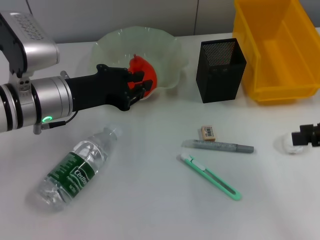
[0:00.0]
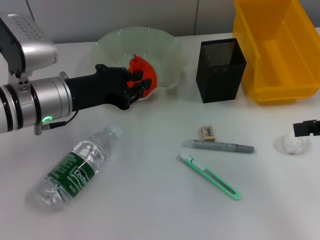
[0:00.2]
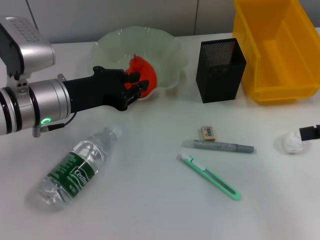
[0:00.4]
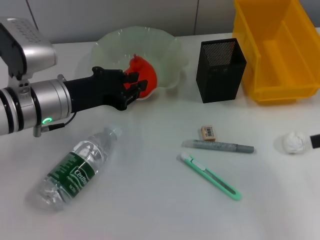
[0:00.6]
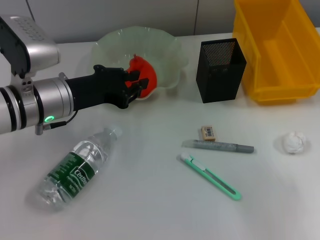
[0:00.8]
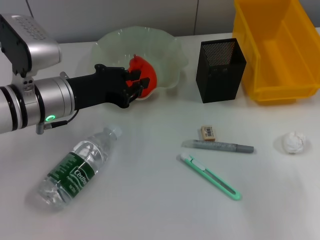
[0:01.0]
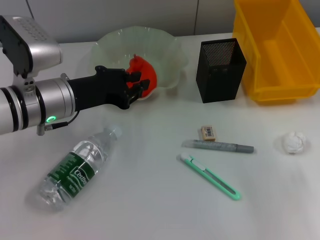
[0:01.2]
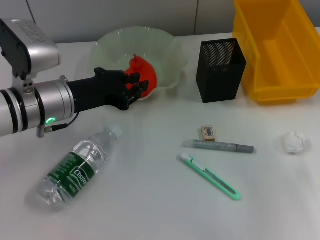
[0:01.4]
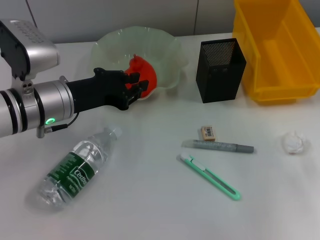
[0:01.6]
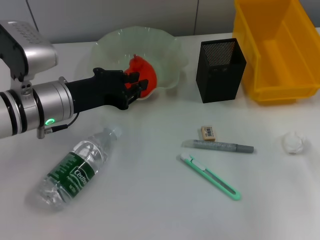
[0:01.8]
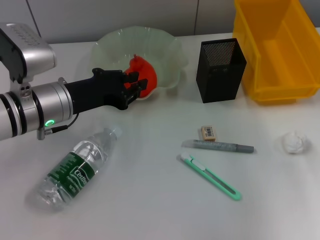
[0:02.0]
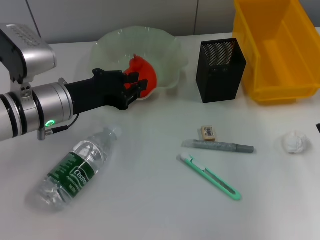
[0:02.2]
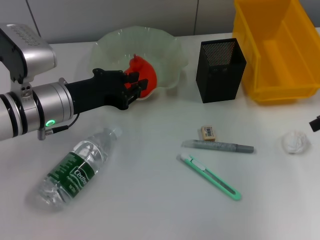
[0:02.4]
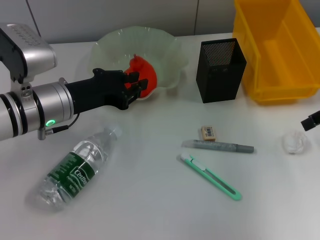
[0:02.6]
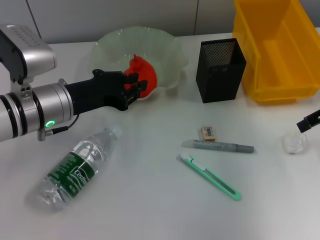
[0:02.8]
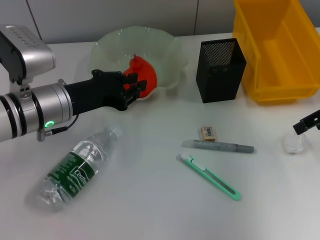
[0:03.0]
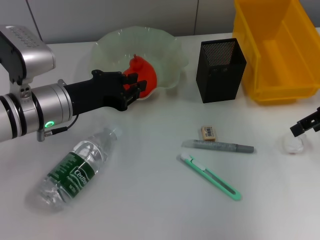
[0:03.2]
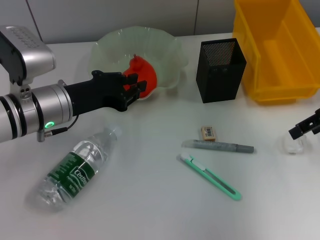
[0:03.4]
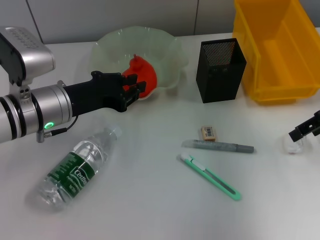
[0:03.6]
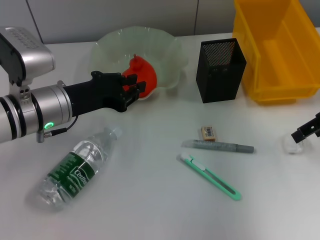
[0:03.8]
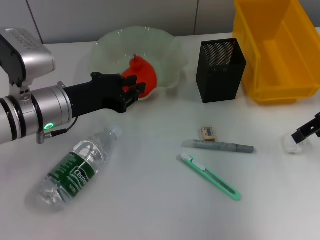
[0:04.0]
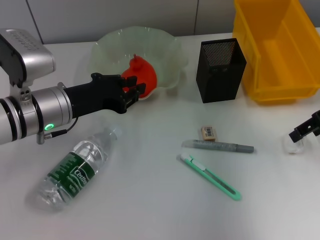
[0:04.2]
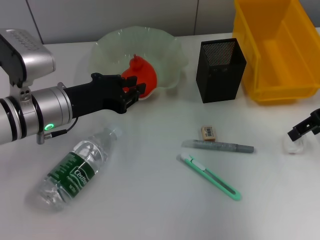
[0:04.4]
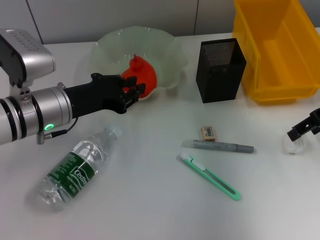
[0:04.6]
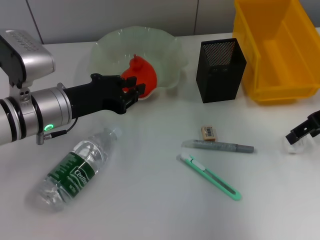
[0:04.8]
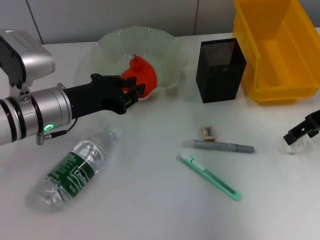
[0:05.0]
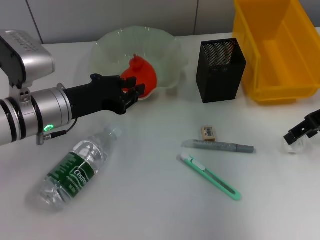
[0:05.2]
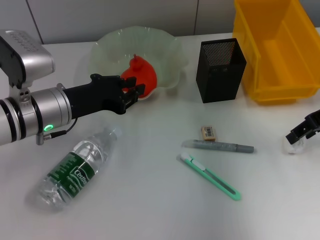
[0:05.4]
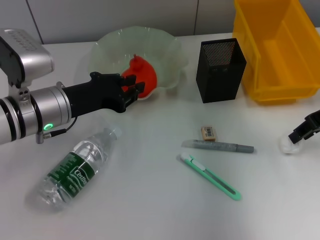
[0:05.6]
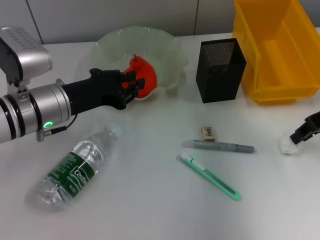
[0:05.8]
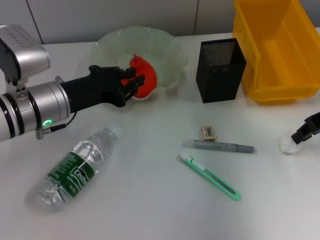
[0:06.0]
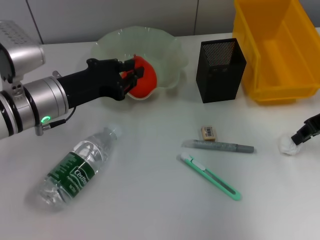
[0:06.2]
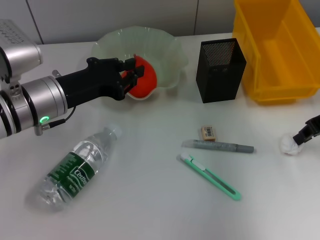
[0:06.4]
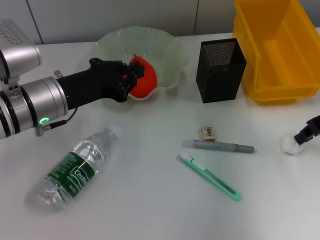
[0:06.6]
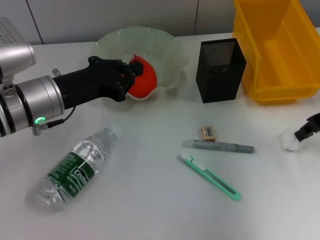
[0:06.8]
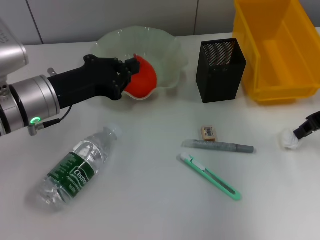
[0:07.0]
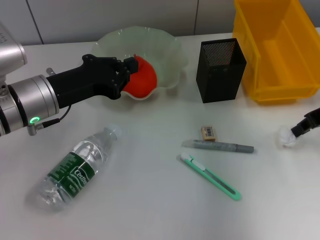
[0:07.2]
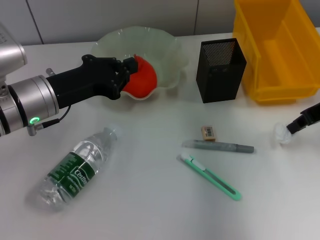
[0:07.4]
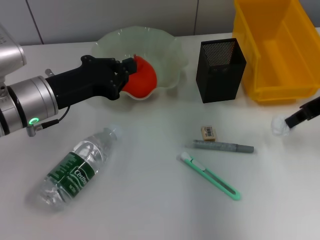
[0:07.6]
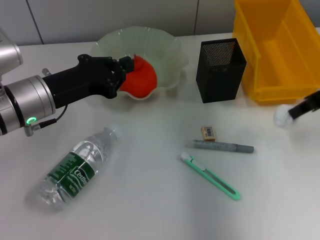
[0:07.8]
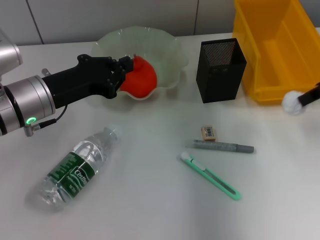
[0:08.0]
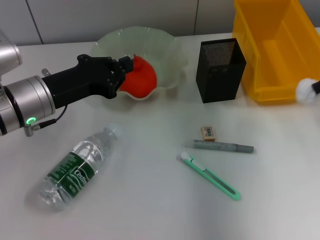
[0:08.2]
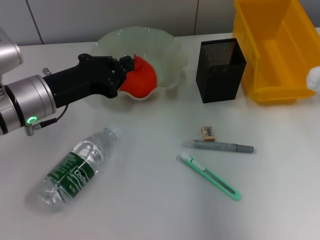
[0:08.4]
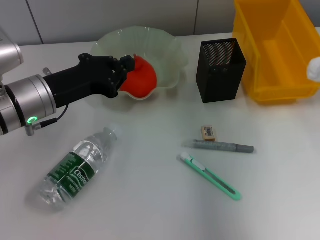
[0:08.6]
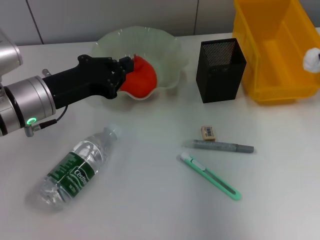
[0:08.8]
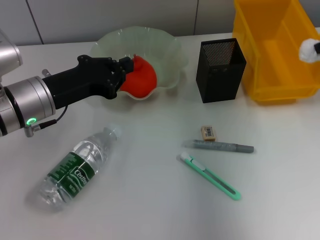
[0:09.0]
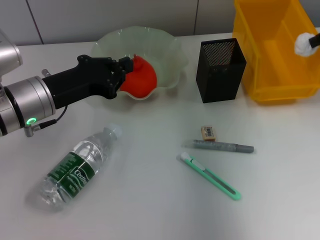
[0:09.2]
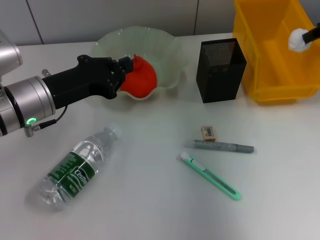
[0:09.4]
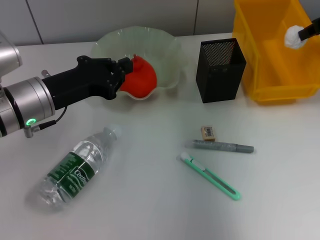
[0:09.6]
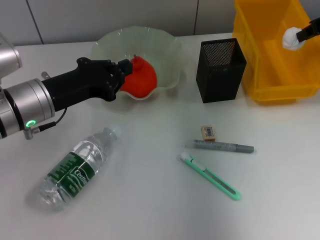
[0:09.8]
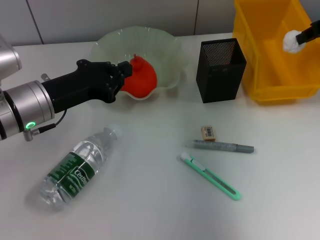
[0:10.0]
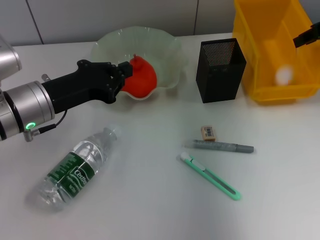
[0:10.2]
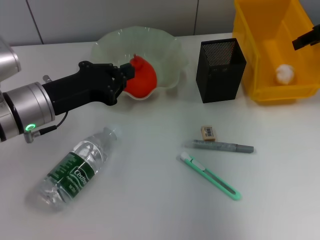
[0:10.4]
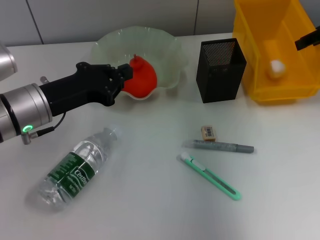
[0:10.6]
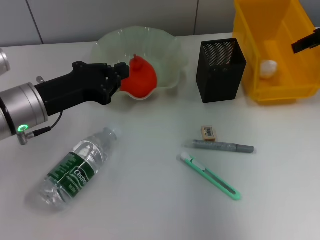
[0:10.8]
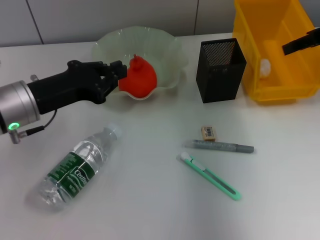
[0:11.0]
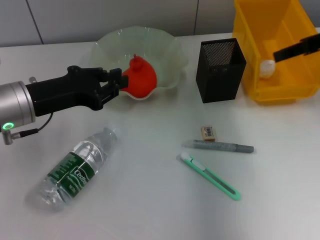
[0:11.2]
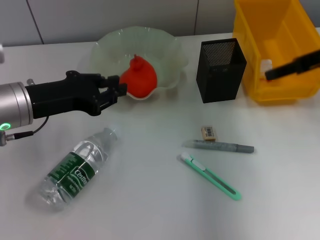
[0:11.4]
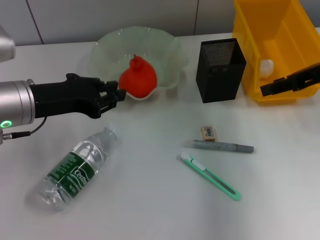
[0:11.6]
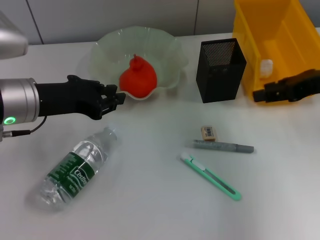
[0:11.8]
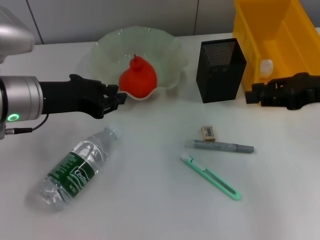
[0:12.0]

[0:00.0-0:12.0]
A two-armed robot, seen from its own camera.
Step, 0:00.0 to 0:06.6: Grab the paper ball with the right hand.
Step, 0:06.8 to 0:10.4: Place the paper ball into the trash can with the right hand.
0:00.0 to 0:01.6: The right gripper heads forward, covering roughly 5 cm.
0:01.6 to 0:03.0: The right gripper is displaced forward by approximately 5 cm.
0:03.0 to 0:04.4: The grippers move only a little.
0:04.4 to 0:06.0: The right gripper closes its fingers.
0:06.0 to 0:07.6: There are only small adjustments of the grippers.
0:07.6 to 0:09.0: The right gripper moves upward, some 5 cm.
0:09.0 to 0:10.4: The grippers move only a little.
0:10.4 to 0:12.0: The right gripper shifts some 15 cm backward and downward.

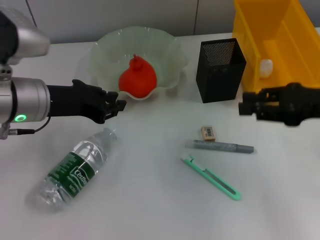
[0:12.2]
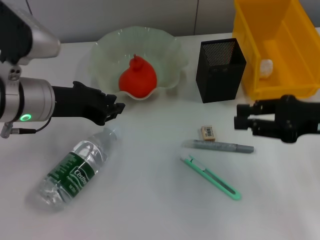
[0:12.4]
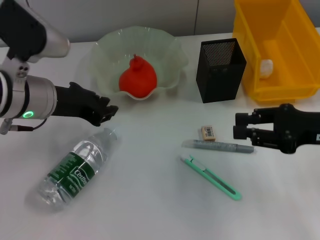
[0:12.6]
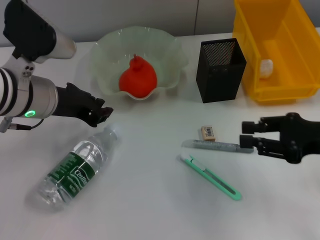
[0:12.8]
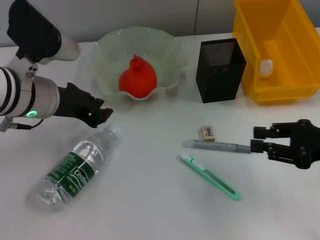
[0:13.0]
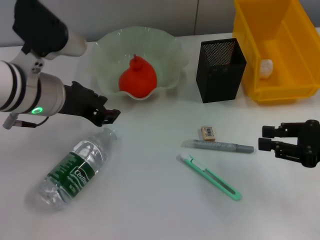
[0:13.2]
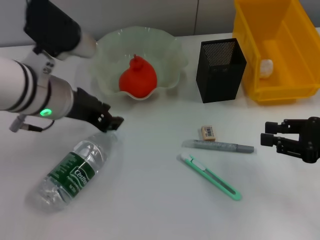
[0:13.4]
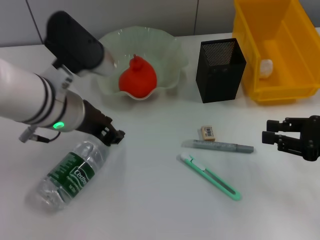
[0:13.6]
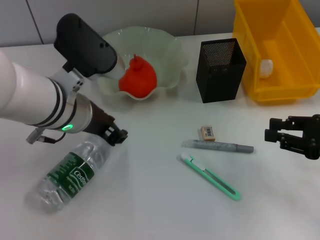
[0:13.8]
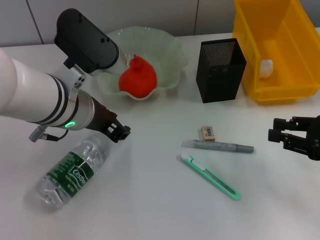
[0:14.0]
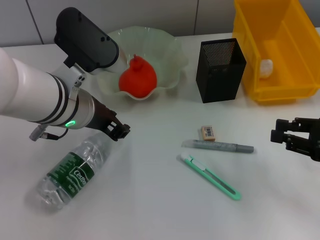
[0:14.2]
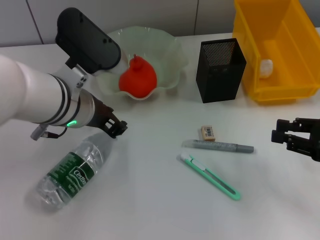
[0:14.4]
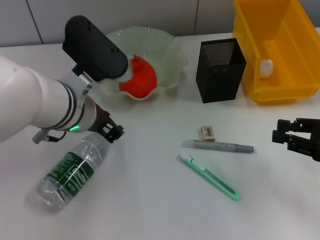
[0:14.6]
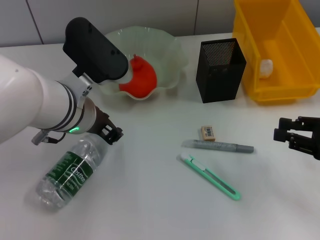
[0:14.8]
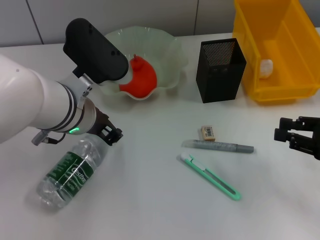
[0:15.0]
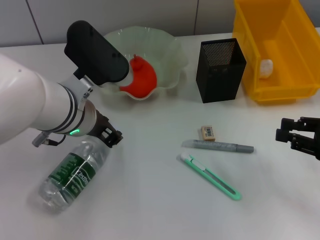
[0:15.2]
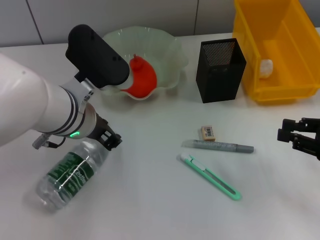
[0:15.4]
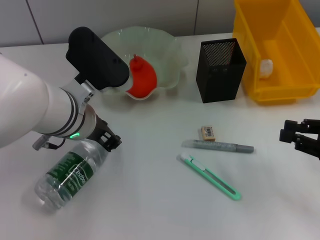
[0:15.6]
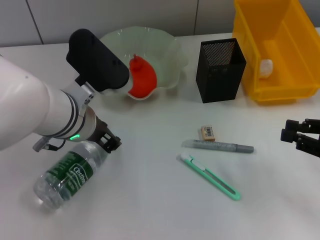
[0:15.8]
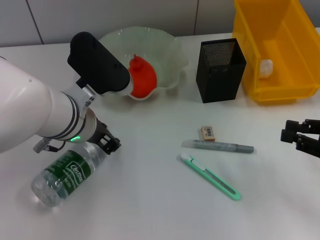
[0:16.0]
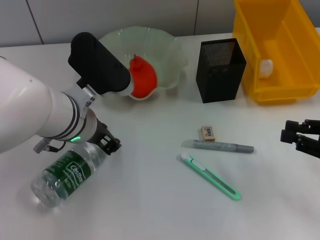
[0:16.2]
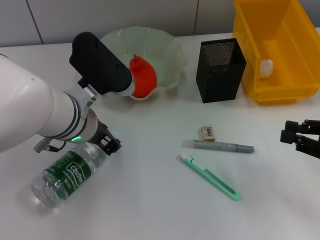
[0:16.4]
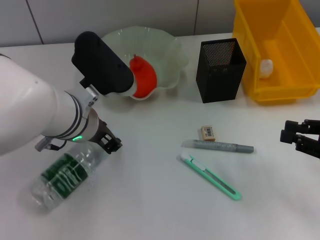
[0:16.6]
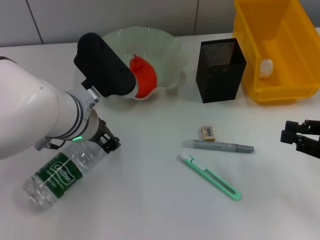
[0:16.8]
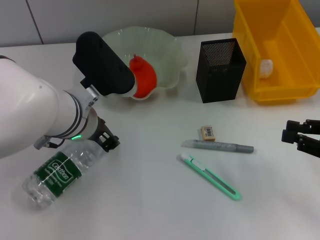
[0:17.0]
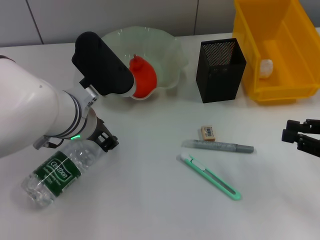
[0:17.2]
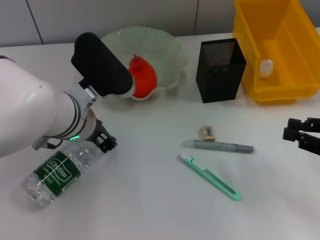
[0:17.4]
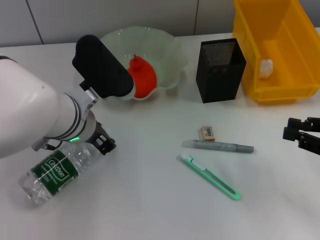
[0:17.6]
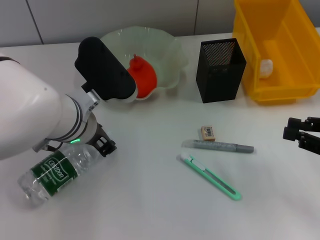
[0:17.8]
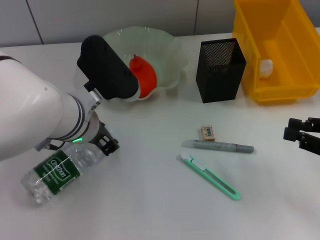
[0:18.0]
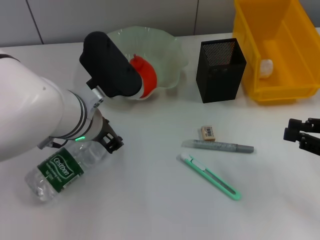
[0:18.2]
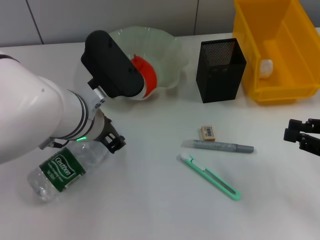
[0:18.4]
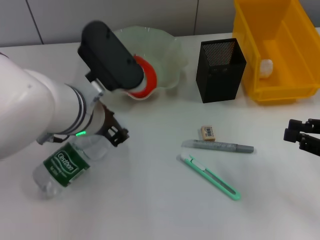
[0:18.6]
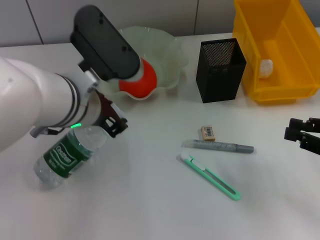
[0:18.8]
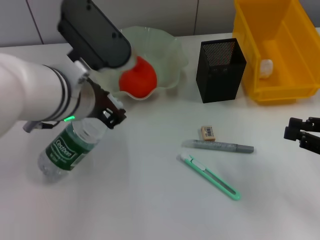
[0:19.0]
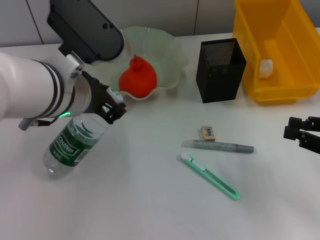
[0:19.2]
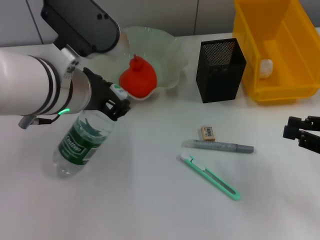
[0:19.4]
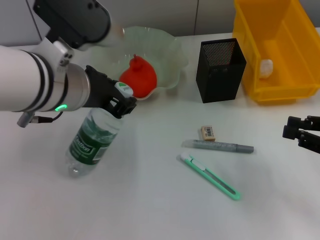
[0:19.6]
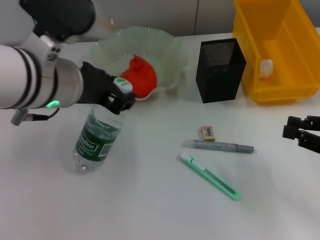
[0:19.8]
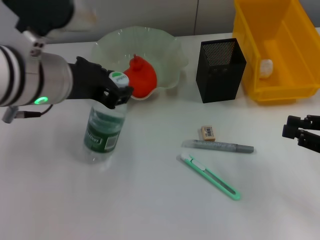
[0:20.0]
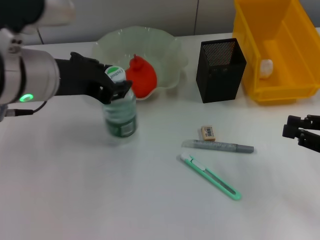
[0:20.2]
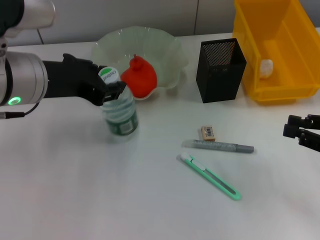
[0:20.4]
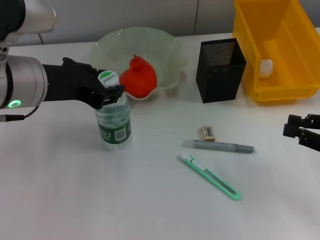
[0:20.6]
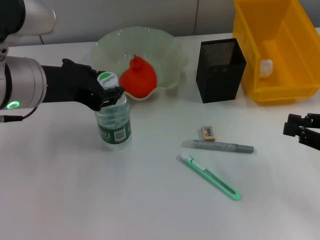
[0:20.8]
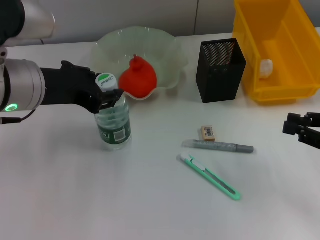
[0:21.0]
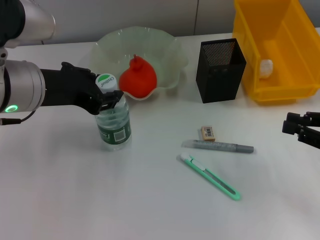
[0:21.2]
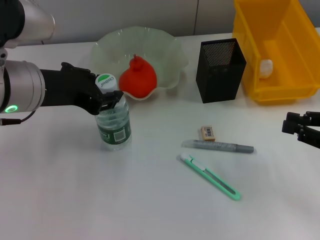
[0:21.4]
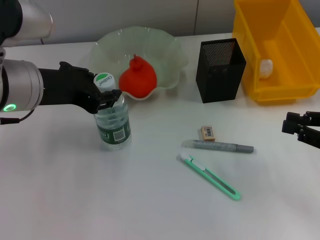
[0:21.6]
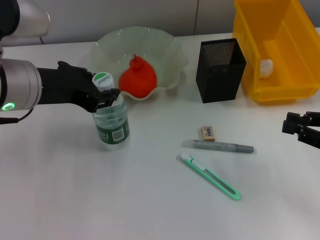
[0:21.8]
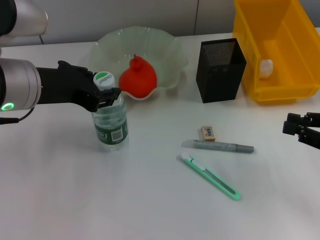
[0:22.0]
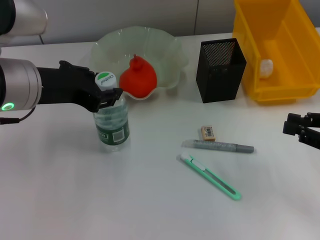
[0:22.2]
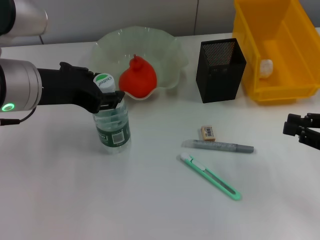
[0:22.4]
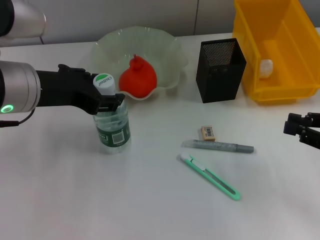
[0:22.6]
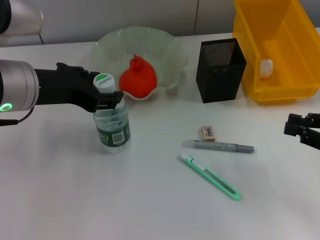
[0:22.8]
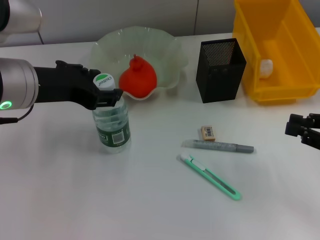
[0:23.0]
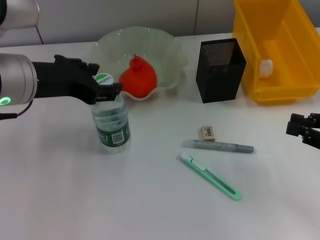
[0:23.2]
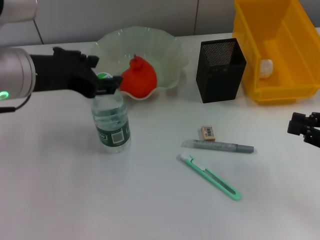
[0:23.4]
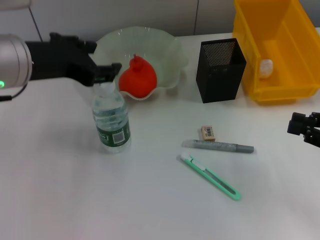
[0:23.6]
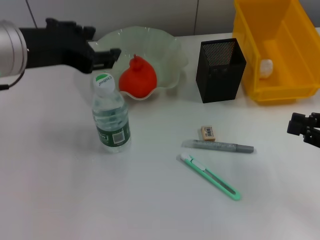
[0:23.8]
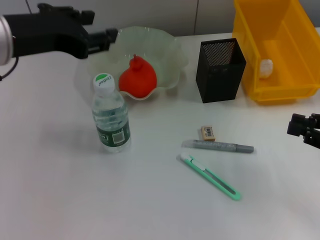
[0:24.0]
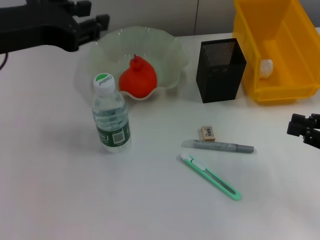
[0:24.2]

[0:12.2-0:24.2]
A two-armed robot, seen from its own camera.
Step, 0:12.2 to 0:18.0: Grab the water bottle with the left hand.
Step, 0:18.2 to 0:22.8: Place the water bottle on the table with the left hand.
0:12.2 to 0:13.8: The left gripper travels to the right by roughly 5 cm, while the right gripper heads downward, covering roughly 5 cm.
0:13.8 to 0:16.6: There are only small adjustments of the grippers.
0:16.6 to 0:18.2: Neither gripper changes place.
0:18.2 to 0:19.8: The left gripper heads upward, covering about 10 cm.
0:19.8 to 0:21.2: The left gripper ends up roughly 5 cm from where it was.
0:21.2 to 0:22.6: Both grippers stay put.
0:22.6 to 0:24.2: The left gripper is displaced upward by some 5 cm.
